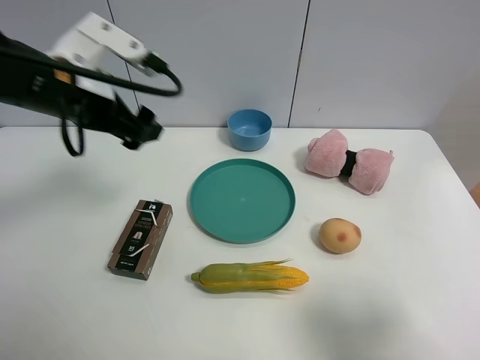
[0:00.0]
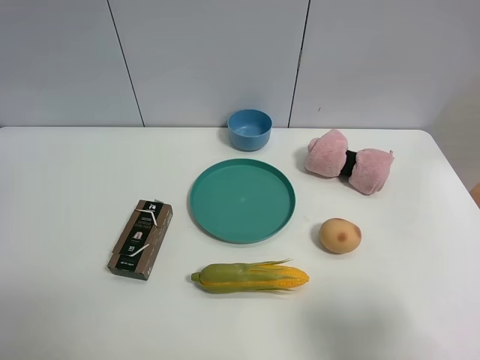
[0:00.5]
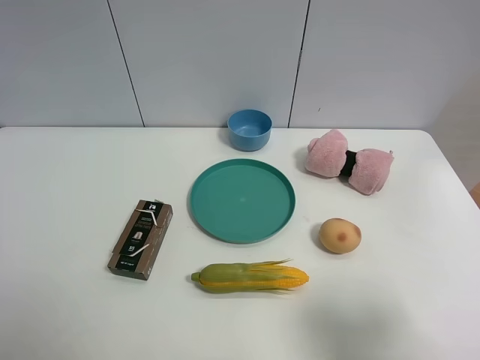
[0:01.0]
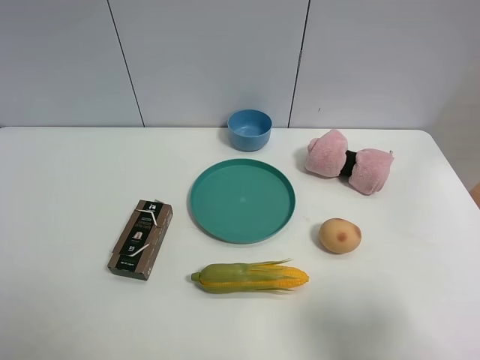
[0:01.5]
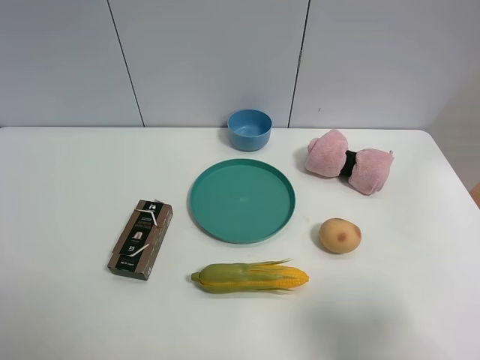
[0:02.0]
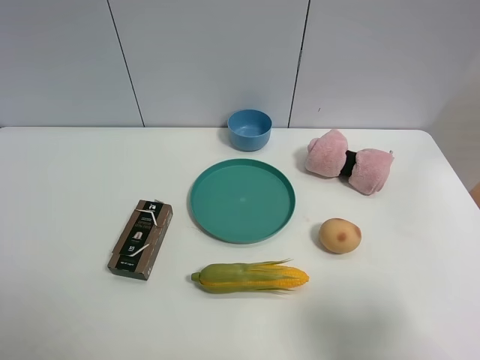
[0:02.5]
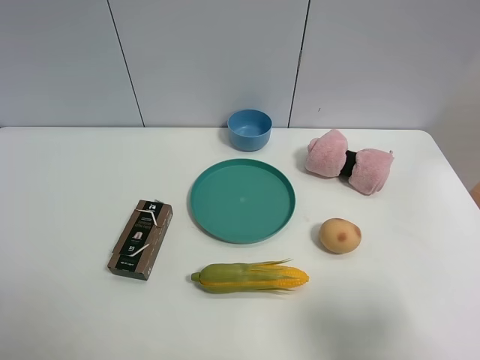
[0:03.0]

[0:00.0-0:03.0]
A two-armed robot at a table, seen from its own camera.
Task of the whole recording: the gripper move the object.
0:00.0 to 0:01.5: The left gripper travels backward by about 30 cm.

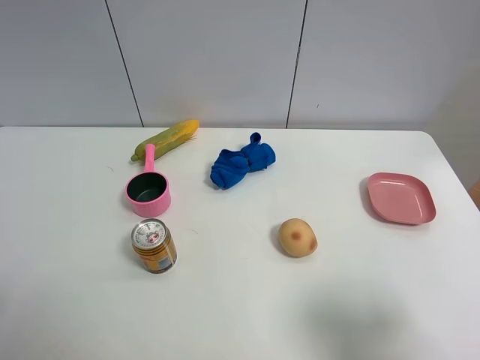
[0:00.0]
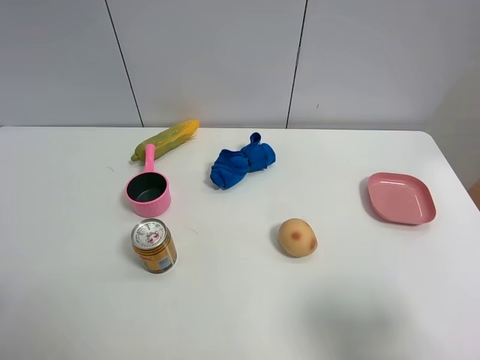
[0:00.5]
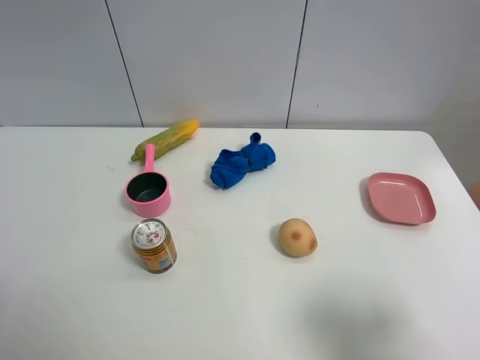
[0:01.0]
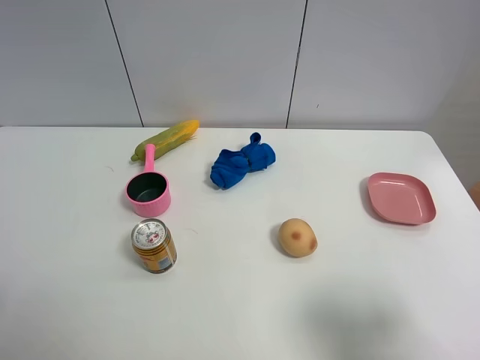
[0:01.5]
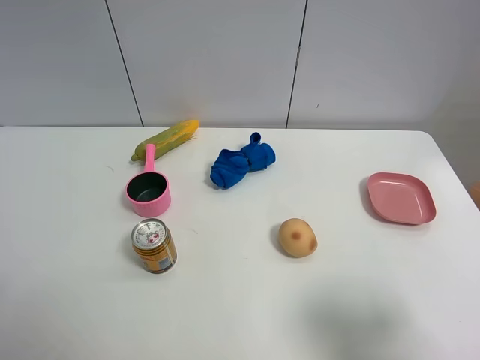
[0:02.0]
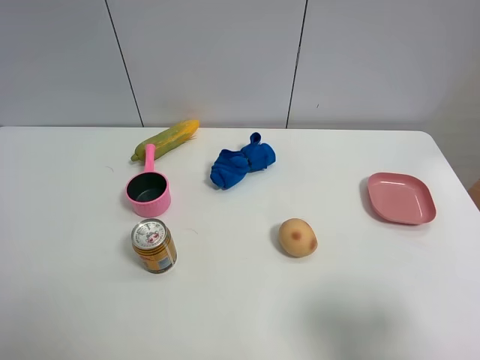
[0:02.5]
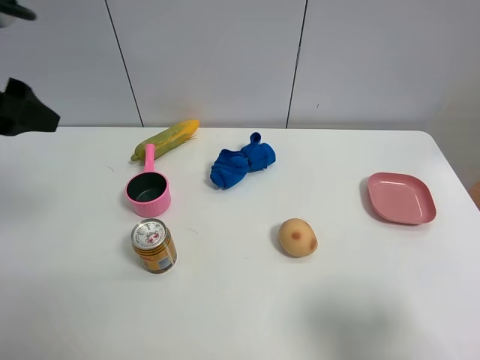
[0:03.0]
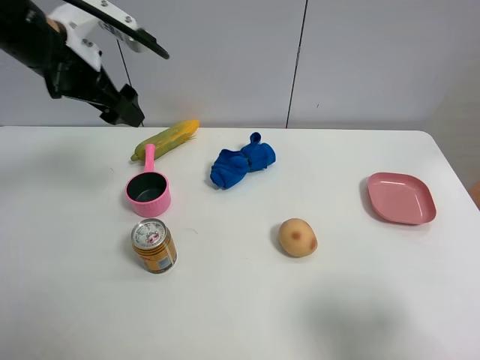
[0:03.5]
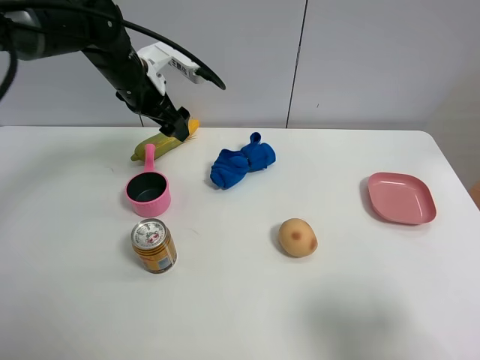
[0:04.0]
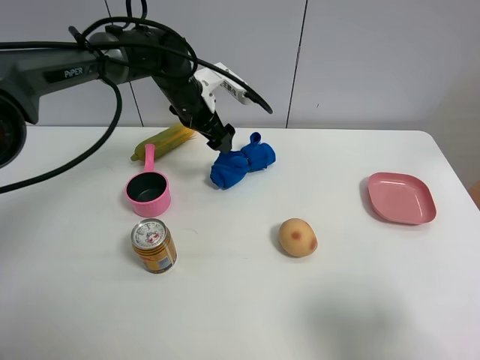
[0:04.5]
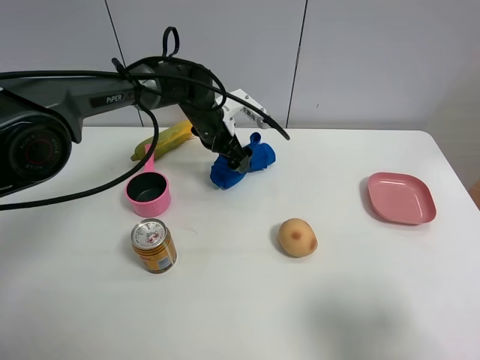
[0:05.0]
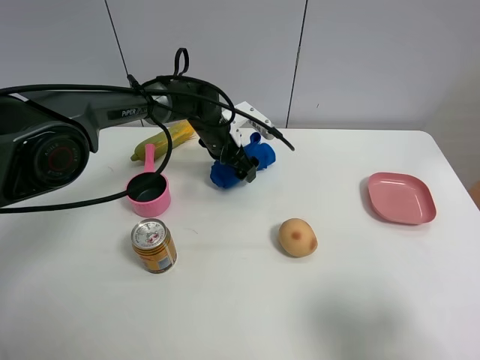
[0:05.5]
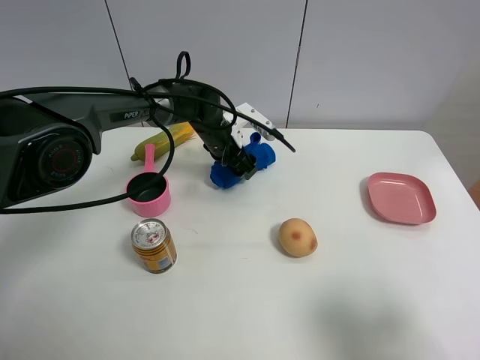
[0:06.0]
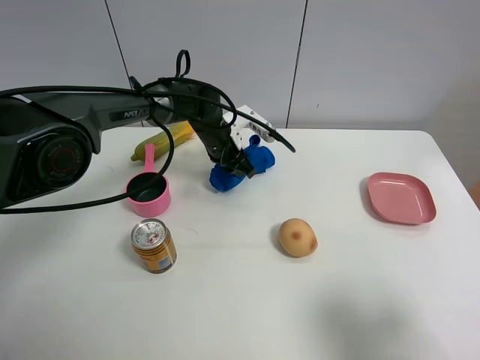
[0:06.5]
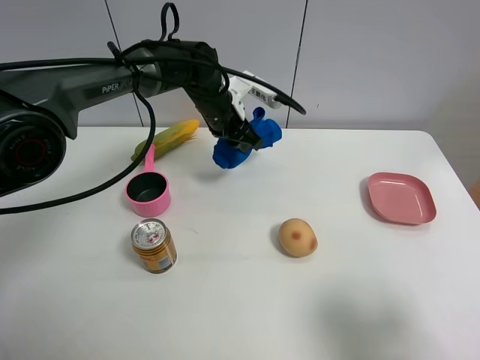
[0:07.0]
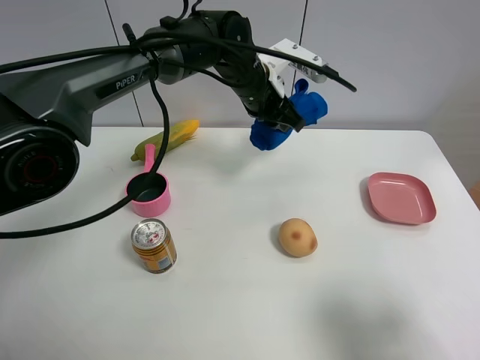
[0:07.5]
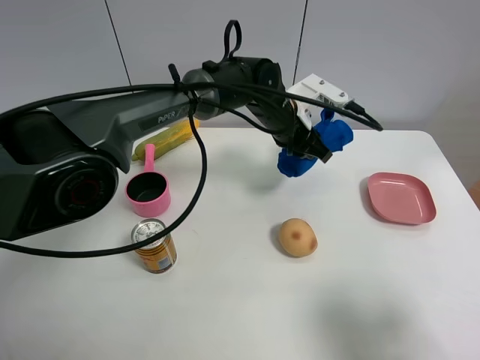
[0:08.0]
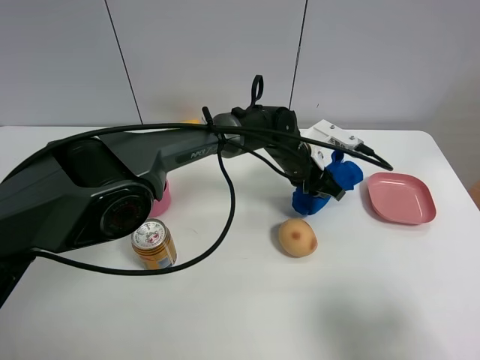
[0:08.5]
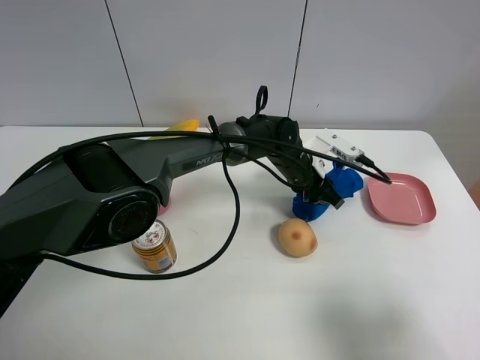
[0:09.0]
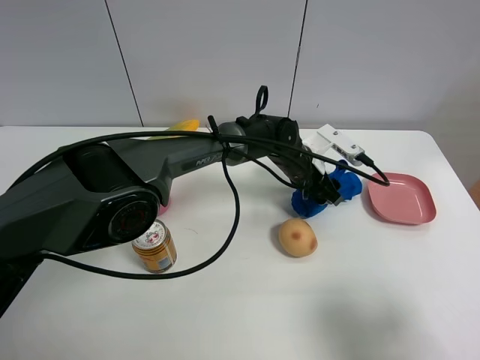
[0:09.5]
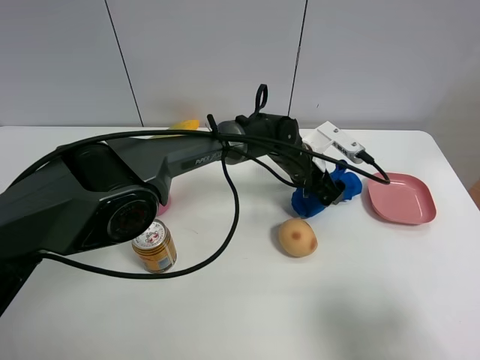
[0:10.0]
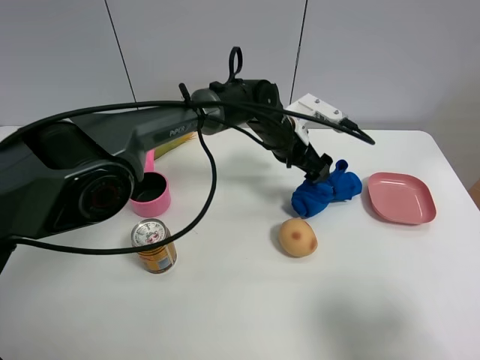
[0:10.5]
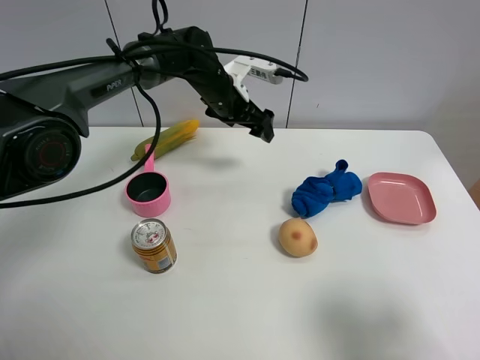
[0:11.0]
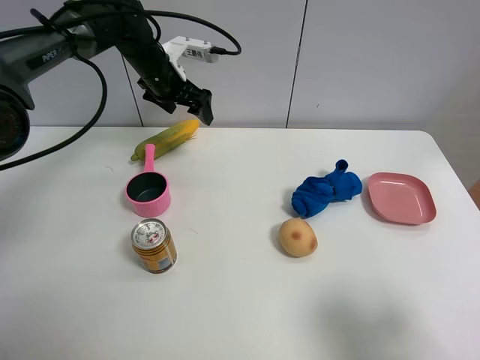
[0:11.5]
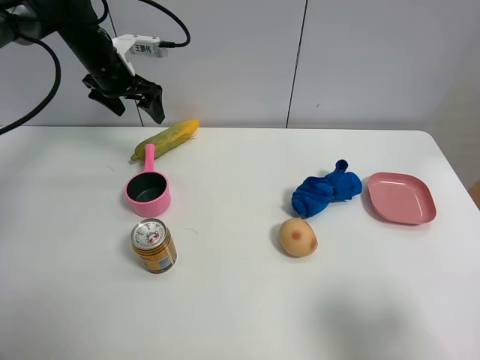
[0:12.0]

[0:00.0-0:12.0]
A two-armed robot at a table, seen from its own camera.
Task of the whole recording: the gripper move the object.
Step, 0:00.0 to 0:06.0: Grasp the blue towel with the left gripper.
Step, 0:06.5 to 0:10.0: Place the blue towel on the table with the left gripper.
0:00.0 to 0:02.0: The two grippers keep their place.
0:02.0 to 0:04.0: The left gripper travels forward by approximately 40 cm.
0:04.0 to 0:06.0: The left gripper goes roughly 15 cm downward and to the right, and closes.
0:06.0 to 0:08.0: The left gripper travels to the right and upward by approximately 15 cm, and closes.
0:08.0 to 0:10.0: The left gripper is displaced downward by roughly 5 cm, and opens up.
0:10.0 to 0:12.0: The left gripper moves to the left, about 35 cm.

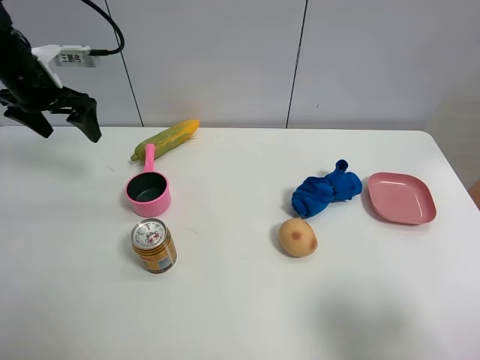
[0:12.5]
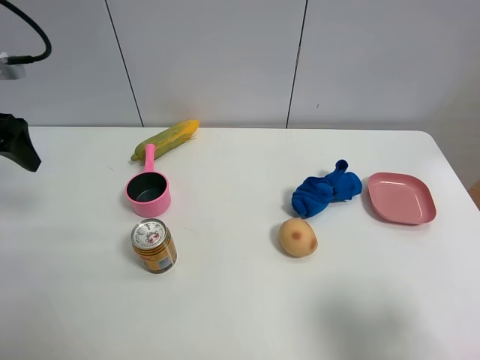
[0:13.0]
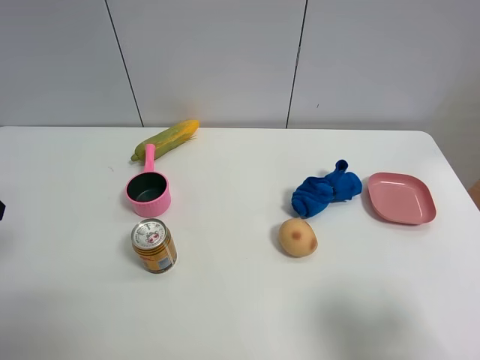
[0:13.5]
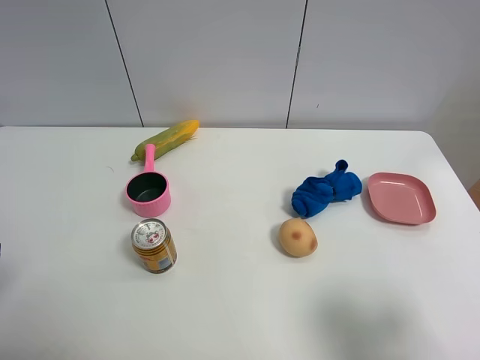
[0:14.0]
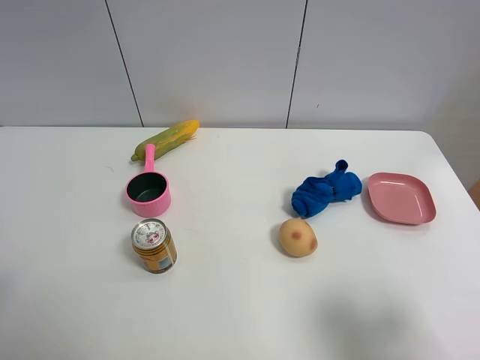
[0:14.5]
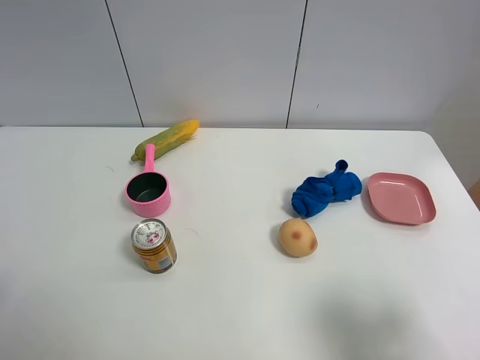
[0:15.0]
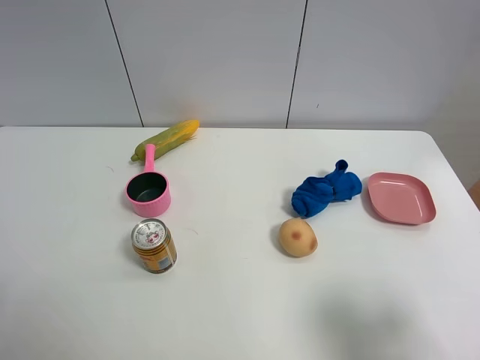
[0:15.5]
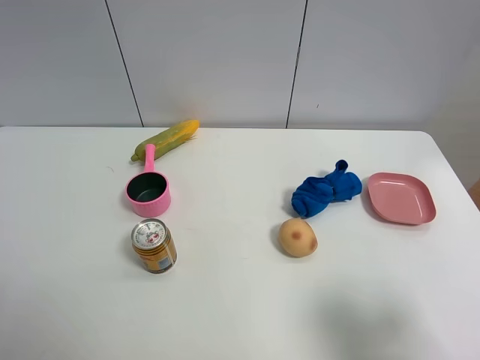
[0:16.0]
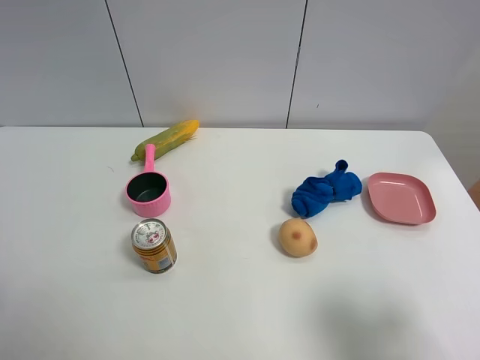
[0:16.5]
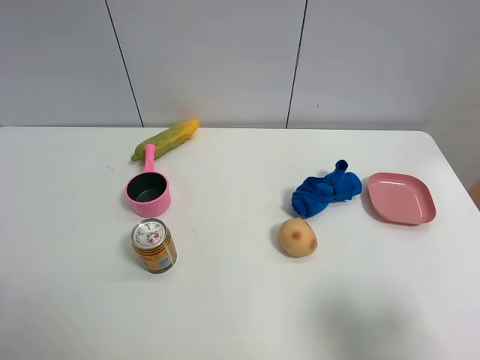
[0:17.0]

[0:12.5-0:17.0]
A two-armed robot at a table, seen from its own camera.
Task of the whole recording: the gripper move the object.
0:12.5 to 0:14.5: The left gripper shifts approximately 35 cm backward.
